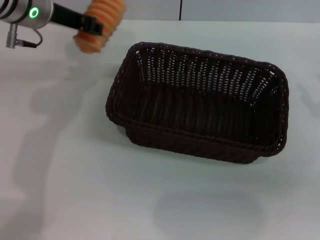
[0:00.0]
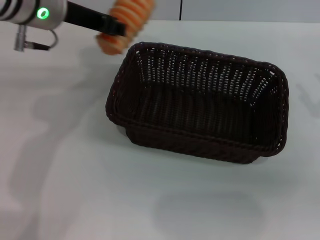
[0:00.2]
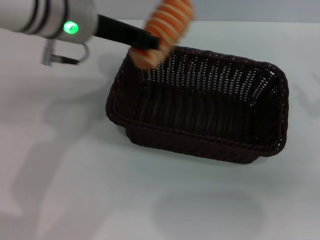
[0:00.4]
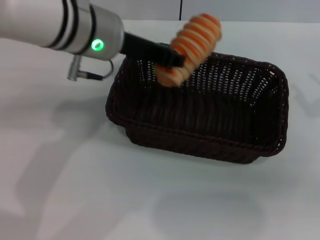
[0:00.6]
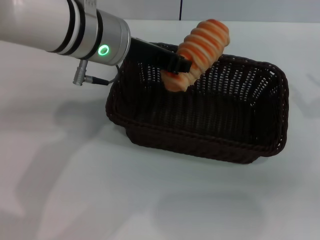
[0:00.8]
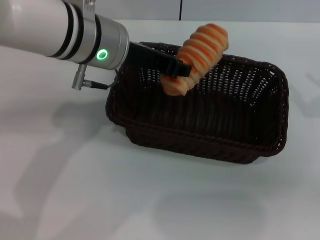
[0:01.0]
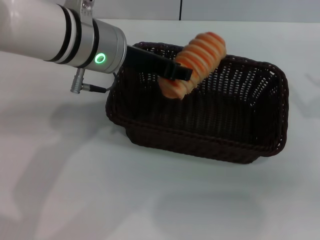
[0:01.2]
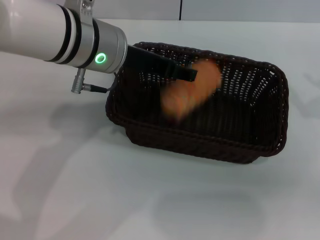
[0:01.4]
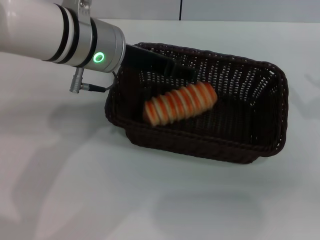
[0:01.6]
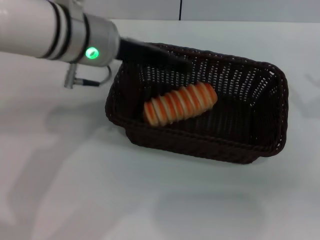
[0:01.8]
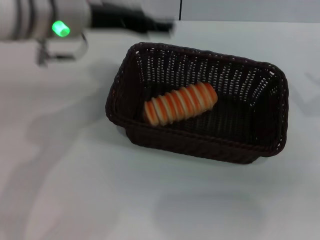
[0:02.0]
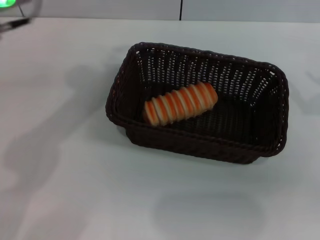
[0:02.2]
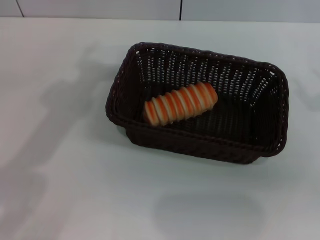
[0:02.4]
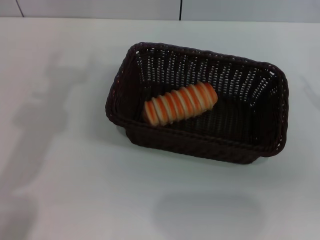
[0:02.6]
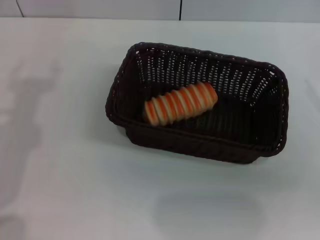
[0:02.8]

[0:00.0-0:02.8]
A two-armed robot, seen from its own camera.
Step, 0:00.0 to 0:01.6: Place the long bread into the dark basket with the left gripper.
0:00.0 to 0:01.4: The left gripper moves to the right and backward, about 10 cm.
0:01.4 to 0:02.8: The left gripper heads to the left and backward, covering approximately 20 cm, and opens.
